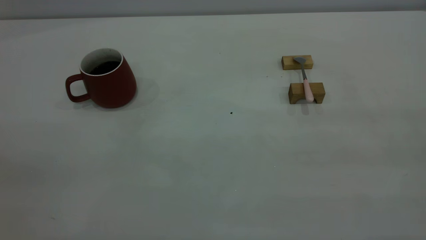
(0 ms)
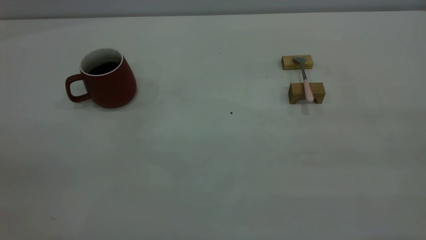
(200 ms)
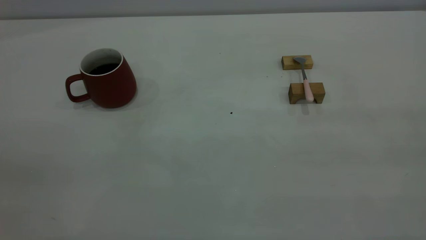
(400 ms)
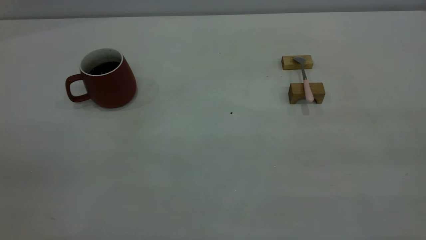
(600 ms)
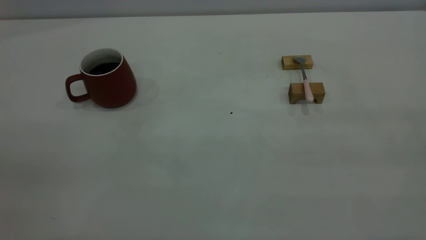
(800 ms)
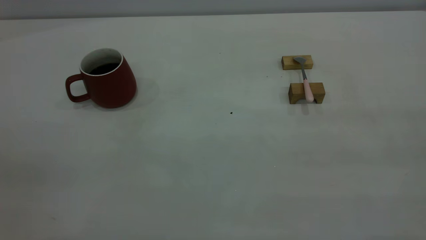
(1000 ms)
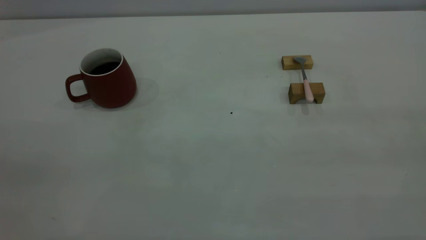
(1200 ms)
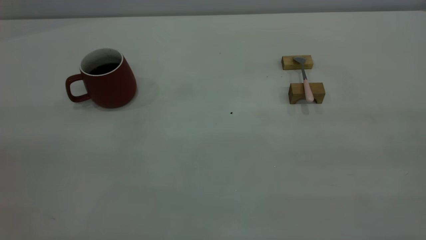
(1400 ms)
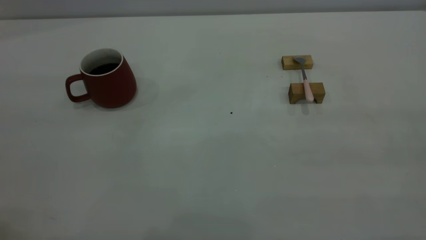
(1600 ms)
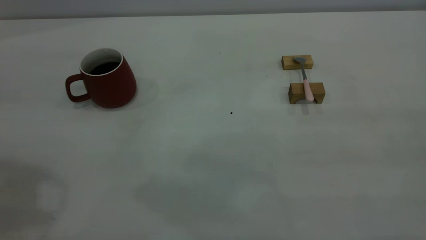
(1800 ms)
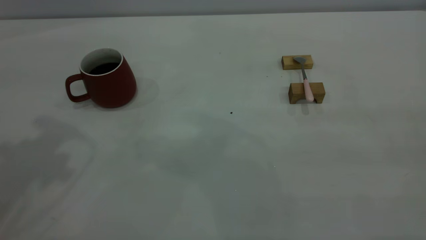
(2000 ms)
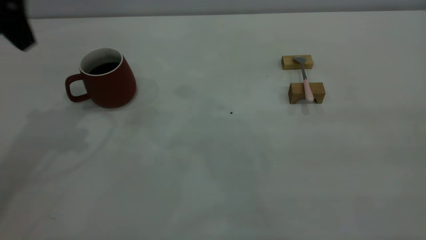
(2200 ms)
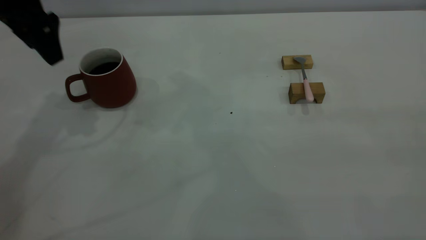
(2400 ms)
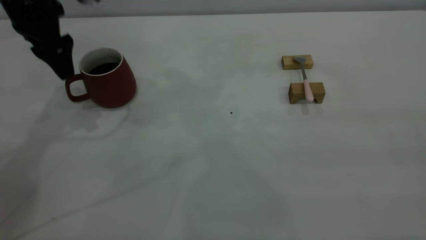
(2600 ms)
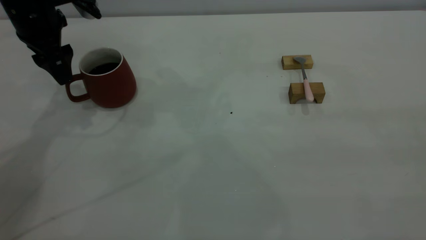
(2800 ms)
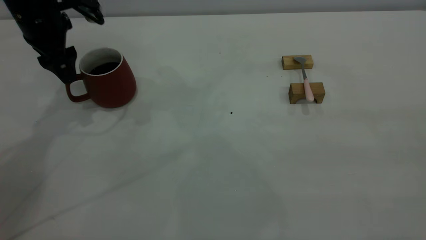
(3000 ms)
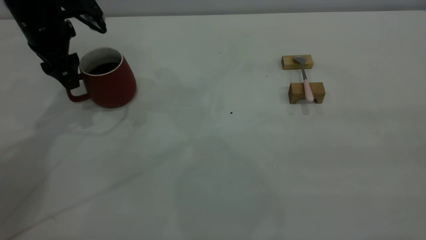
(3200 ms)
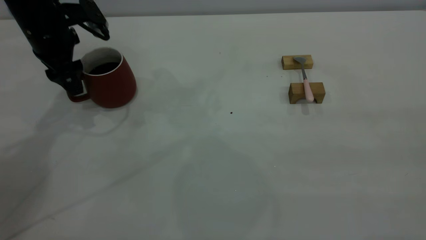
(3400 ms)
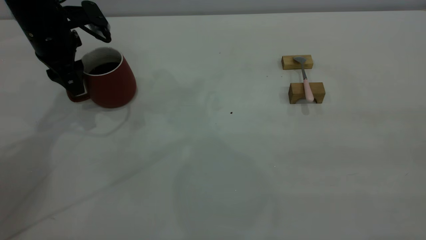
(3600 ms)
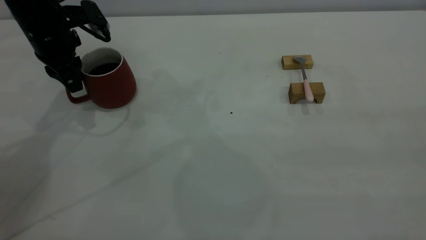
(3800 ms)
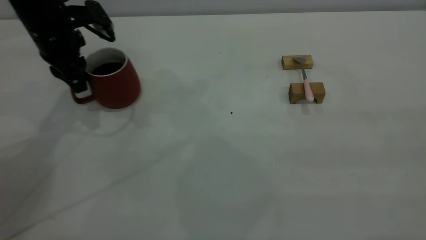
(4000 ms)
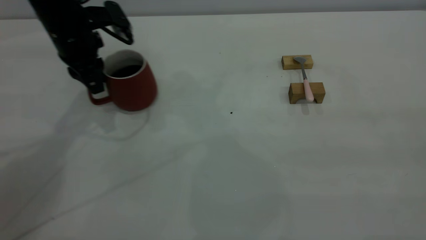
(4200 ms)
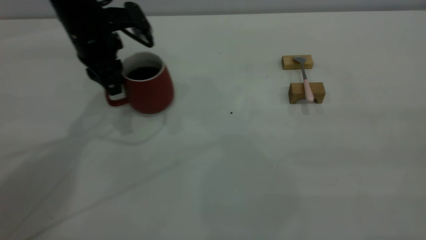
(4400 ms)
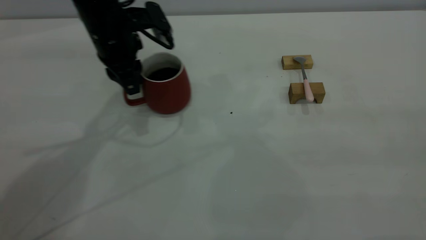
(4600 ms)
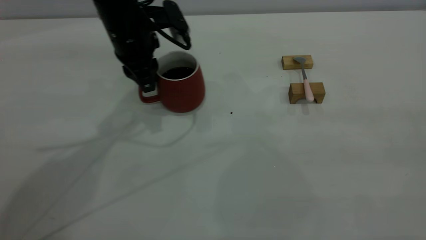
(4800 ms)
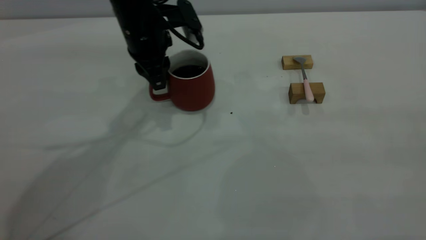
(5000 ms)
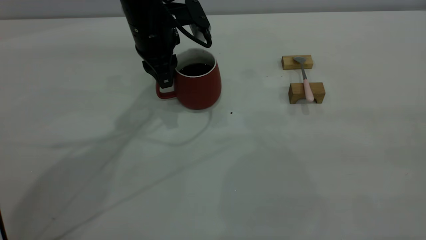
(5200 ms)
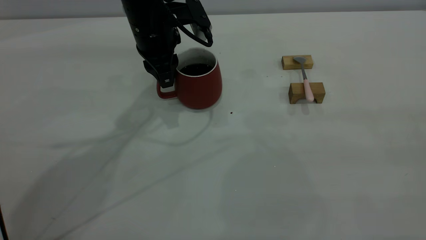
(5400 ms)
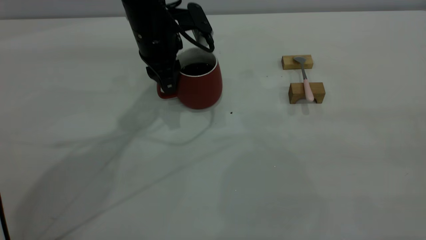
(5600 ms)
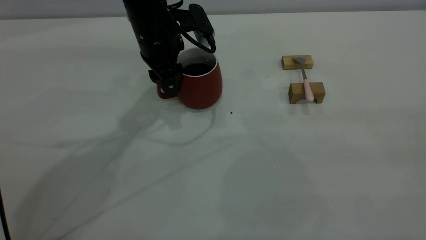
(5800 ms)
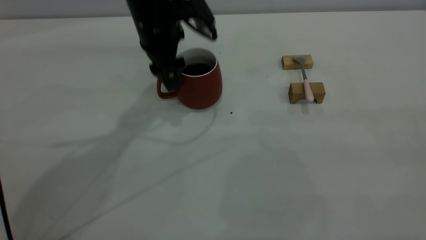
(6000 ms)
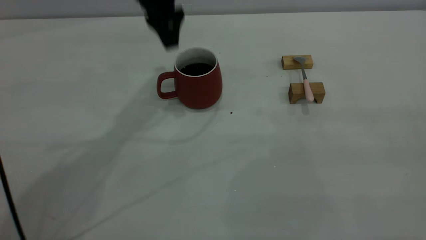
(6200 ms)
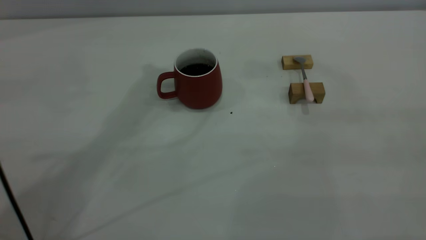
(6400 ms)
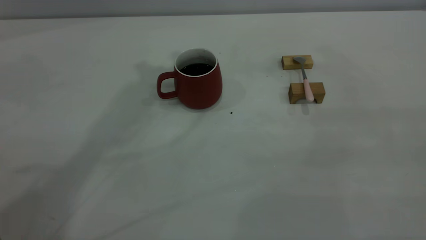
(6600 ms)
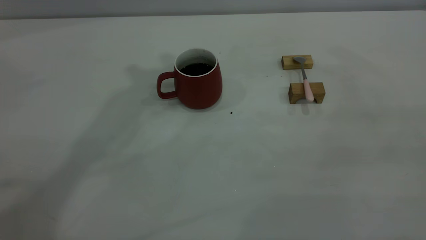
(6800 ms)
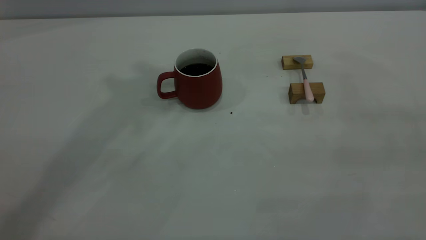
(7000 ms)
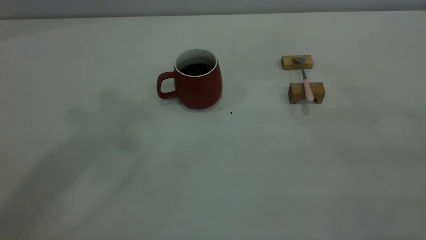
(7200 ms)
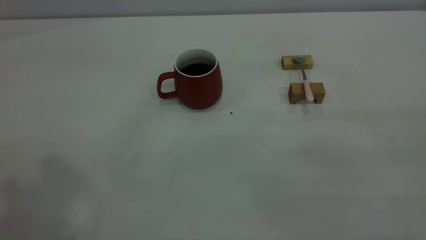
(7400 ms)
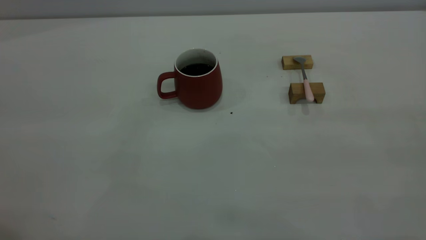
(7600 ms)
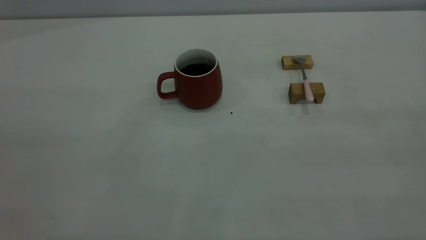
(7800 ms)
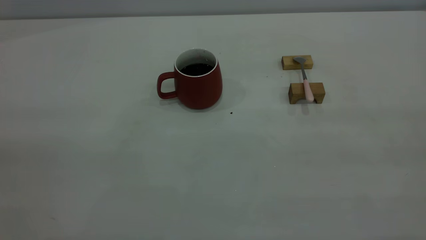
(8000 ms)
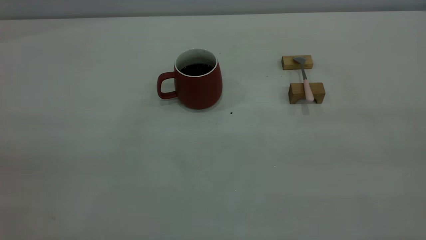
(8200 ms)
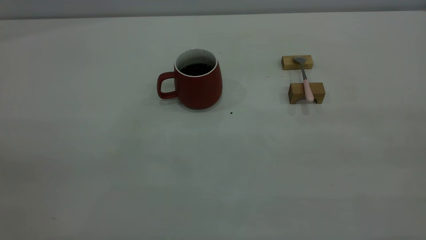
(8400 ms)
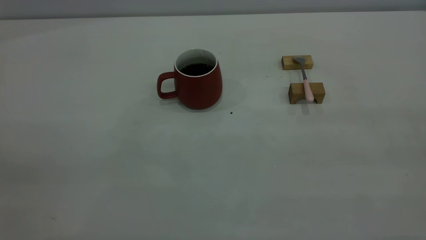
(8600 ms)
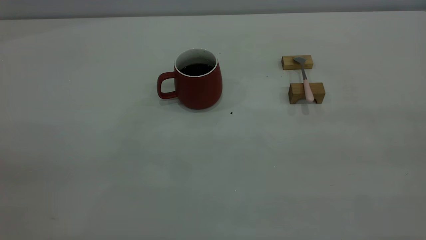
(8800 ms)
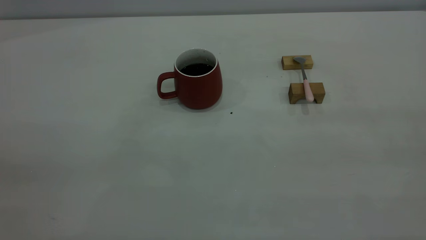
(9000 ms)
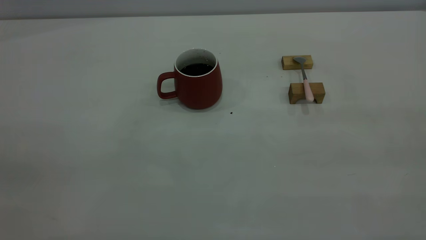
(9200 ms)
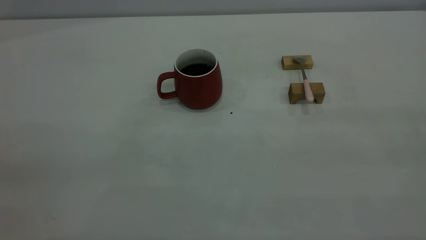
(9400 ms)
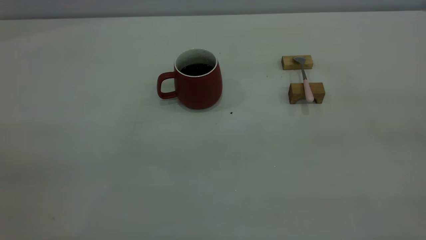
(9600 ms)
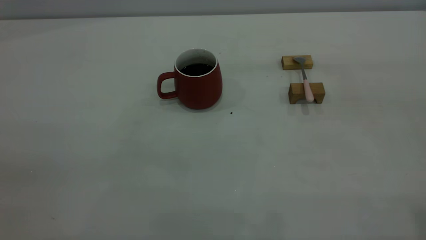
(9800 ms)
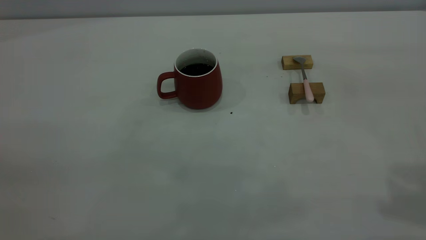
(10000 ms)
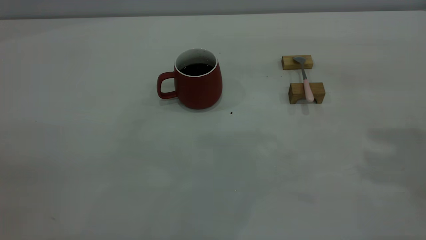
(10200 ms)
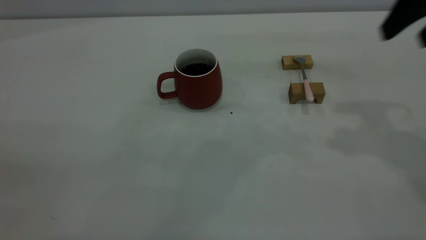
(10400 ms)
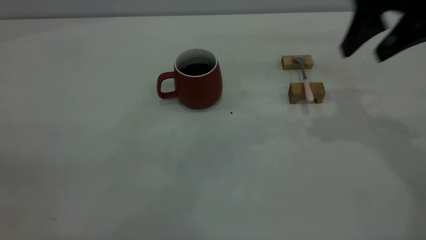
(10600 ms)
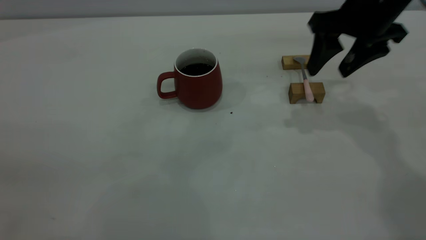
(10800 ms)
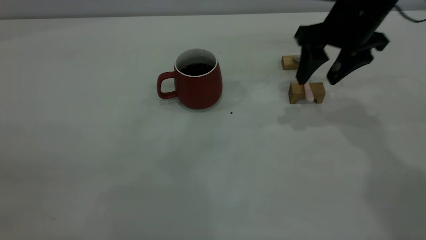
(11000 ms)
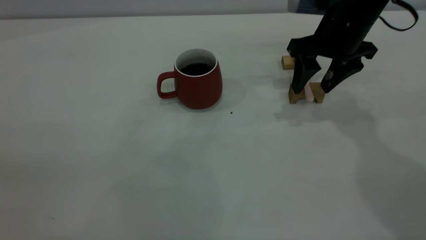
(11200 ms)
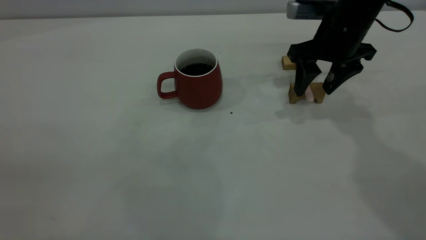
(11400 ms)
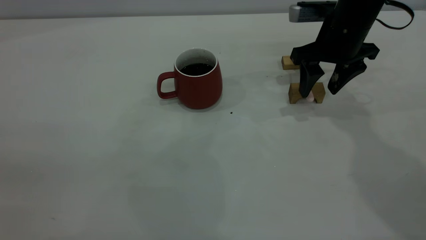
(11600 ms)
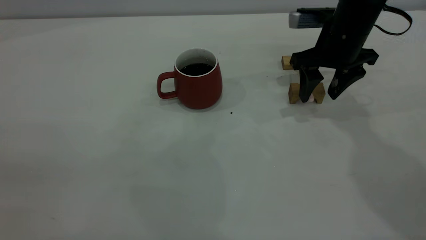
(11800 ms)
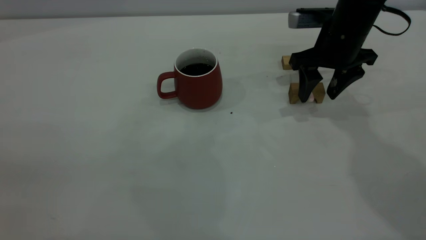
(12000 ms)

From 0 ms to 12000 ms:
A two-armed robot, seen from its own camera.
Step, from 0 ms to 6000 ms: Move the cup with coffee to the center of view.
From 1600 ms to 3000 ms: The left gripper travels forward and downward by about 35 cm, and opens its fingers.
From 3000 ms to 4400 ms: The left gripper is displaced to the right by some 10 cm, and closes.
From 4400 ms to 6000 ms: The left gripper goes approximately 10 cm to the right, and opens its fingers.
From 6000 ms to 7600 ms: The left gripper moves backward, upward and to the left, approximately 50 cm, and closes its fingers.
From 9000 ms to 10400 ms: The right gripper travels forward by approximately 30 cm, and opens up.
From 10400 ms to 12000 ms: The right gripper is displaced downward, forward and to the left by some 20 cm.

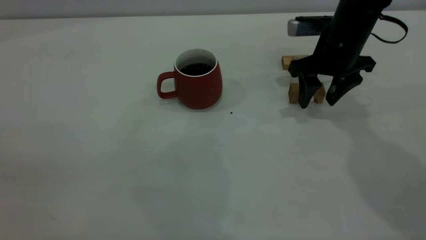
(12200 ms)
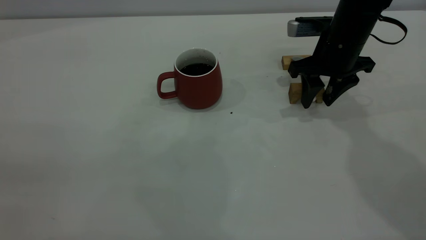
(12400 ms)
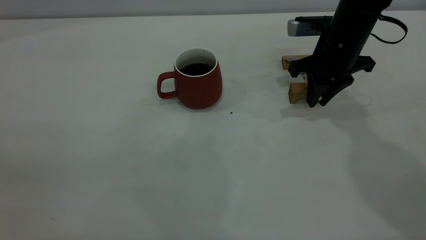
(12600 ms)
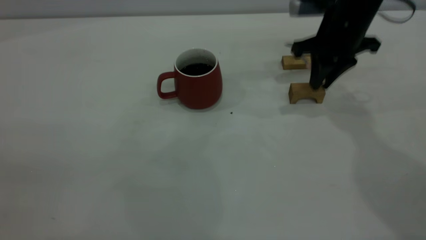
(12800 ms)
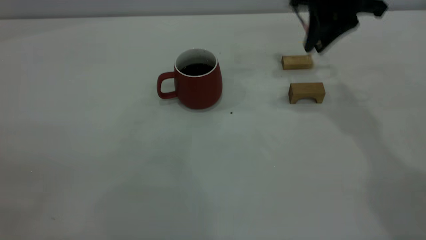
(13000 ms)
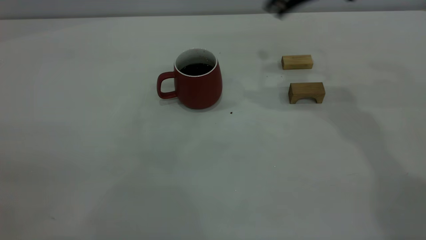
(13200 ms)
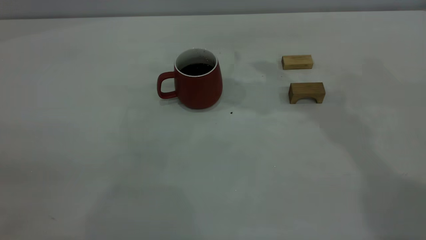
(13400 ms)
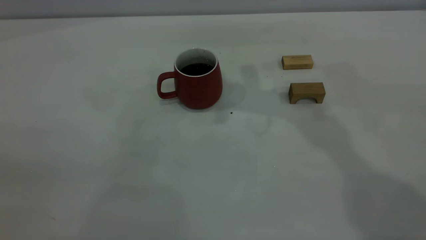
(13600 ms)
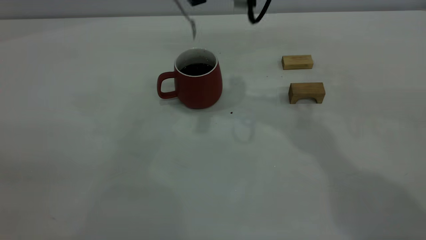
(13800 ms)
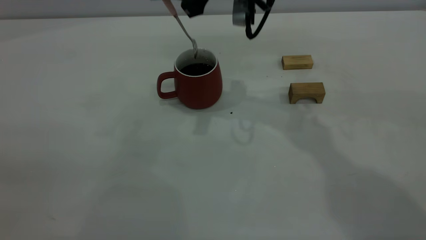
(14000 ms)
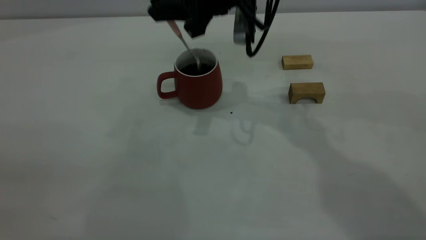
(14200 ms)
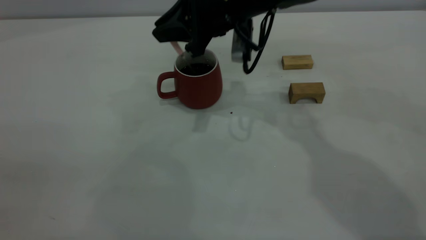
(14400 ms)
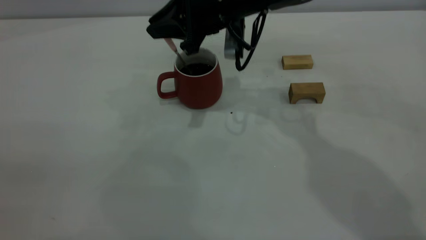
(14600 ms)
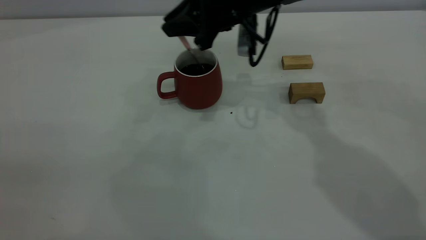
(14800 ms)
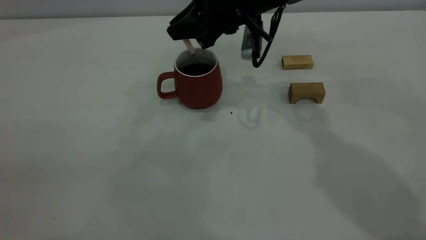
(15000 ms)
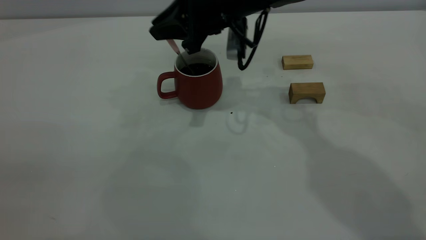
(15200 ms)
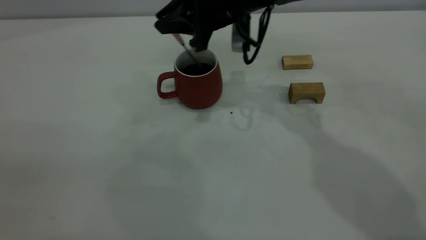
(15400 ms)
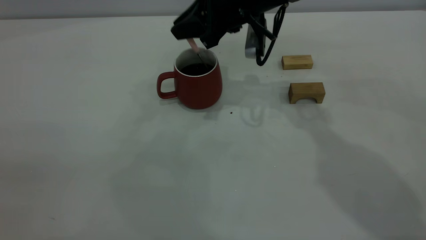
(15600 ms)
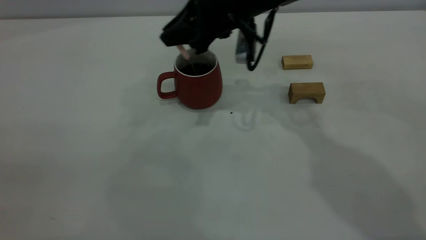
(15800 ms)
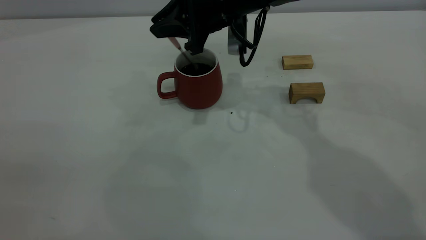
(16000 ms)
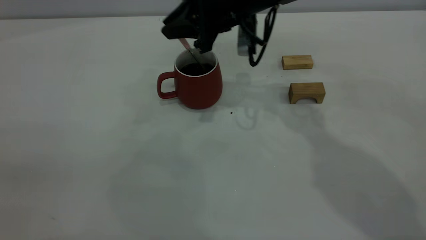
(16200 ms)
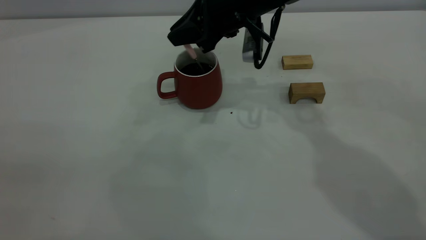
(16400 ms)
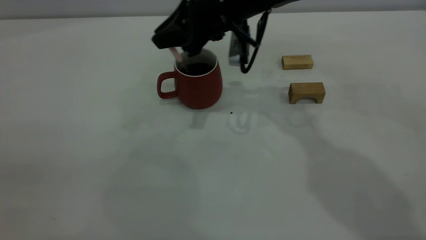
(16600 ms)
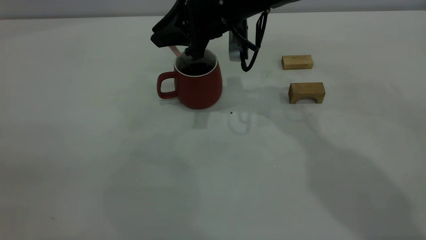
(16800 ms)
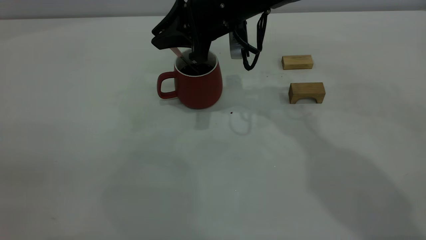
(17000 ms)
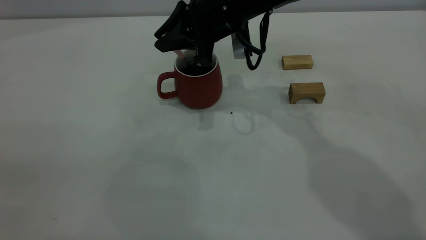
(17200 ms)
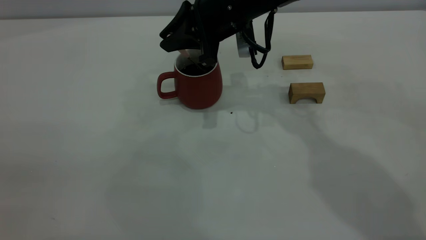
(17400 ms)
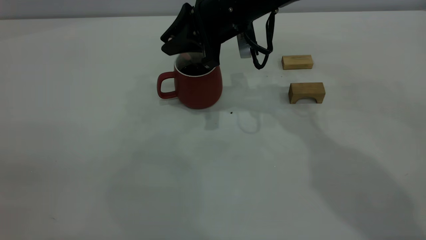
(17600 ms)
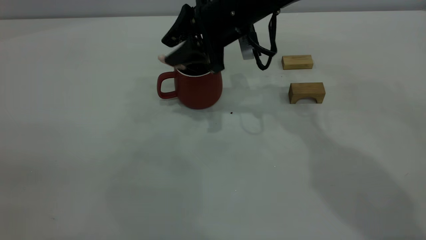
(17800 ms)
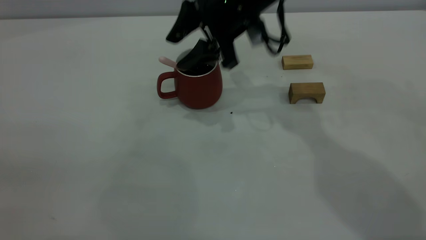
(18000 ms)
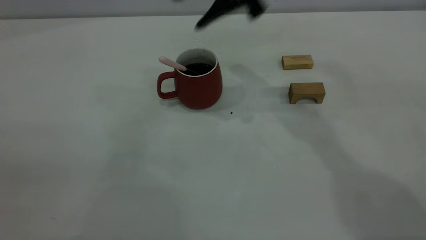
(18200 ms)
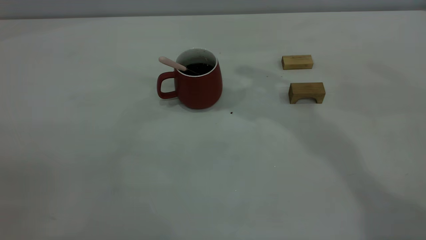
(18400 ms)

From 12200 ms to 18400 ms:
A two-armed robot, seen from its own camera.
Step, from 13000 ms to 18000 ms: Stir the coffee in the cup.
From 12200 ms to 13800 ms: The right gripper travels to the left and upward by some 20 cm, and closes its fingers.
From 13800 ms to 15400 ms: The right gripper heads downward, covering approximately 10 cm.
From 15400 ms to 16800 ms: The grippers make only small movements.
From 16800 ms to 18400 ms: The right gripper moves upward, about 20 cm, and opens its fingers.
